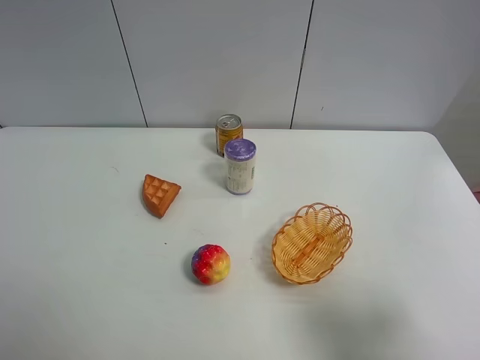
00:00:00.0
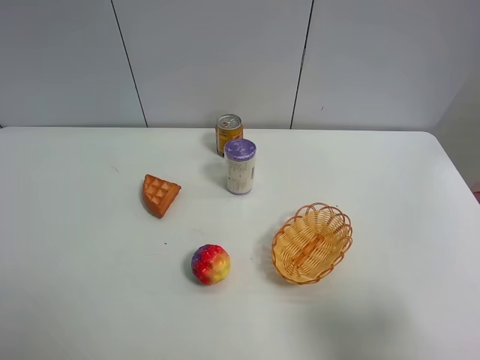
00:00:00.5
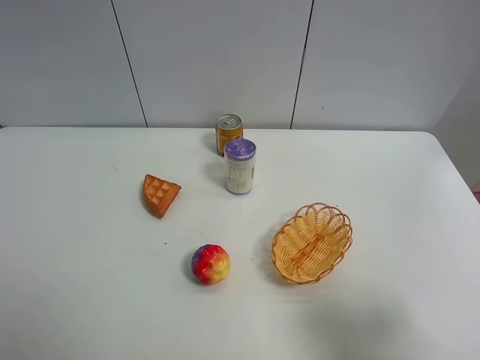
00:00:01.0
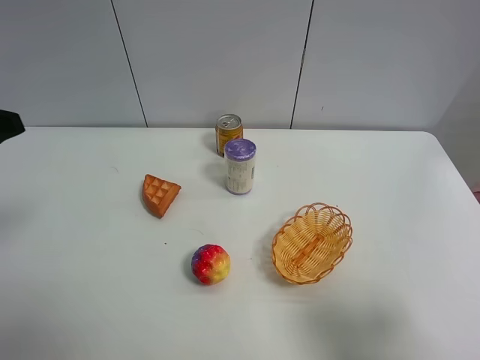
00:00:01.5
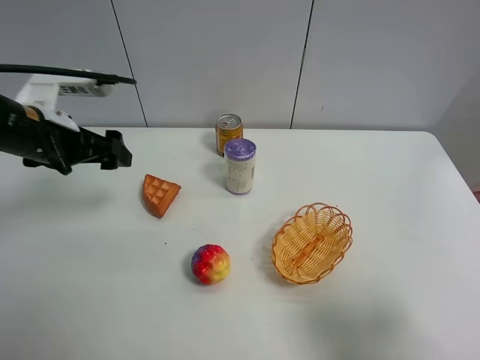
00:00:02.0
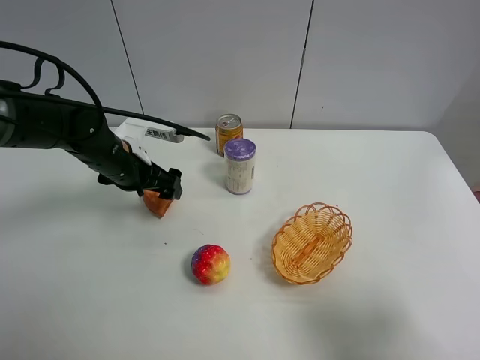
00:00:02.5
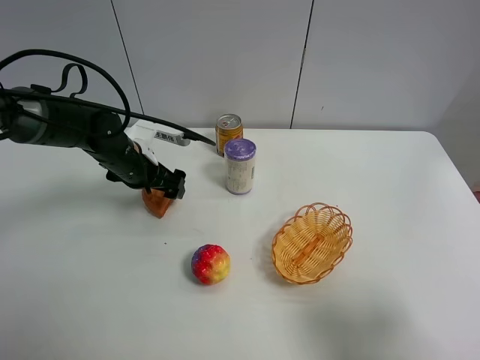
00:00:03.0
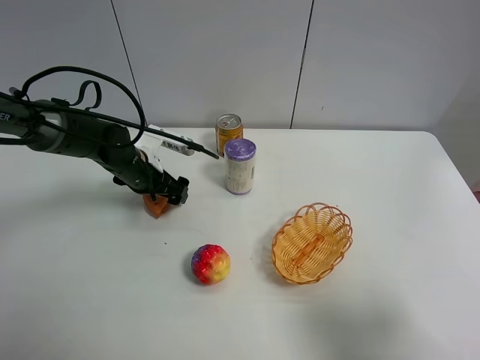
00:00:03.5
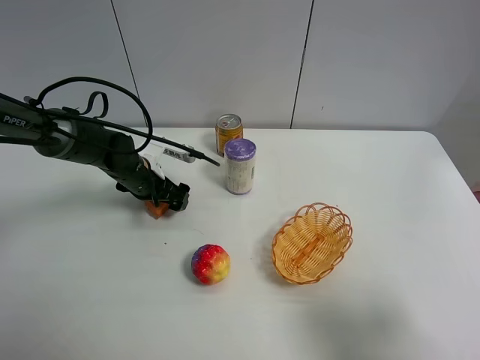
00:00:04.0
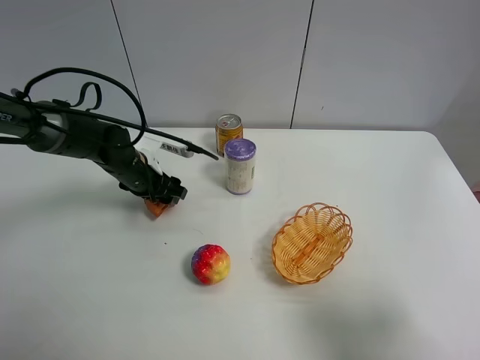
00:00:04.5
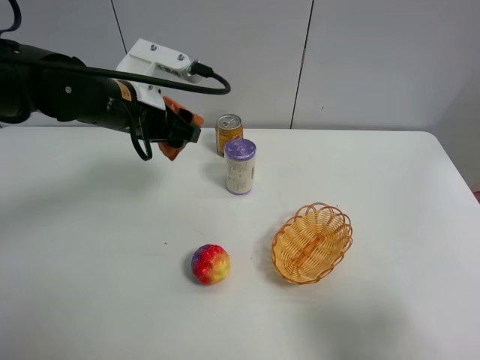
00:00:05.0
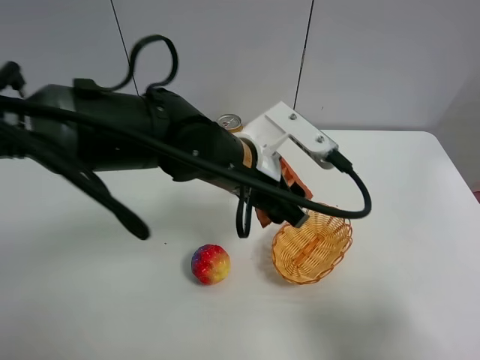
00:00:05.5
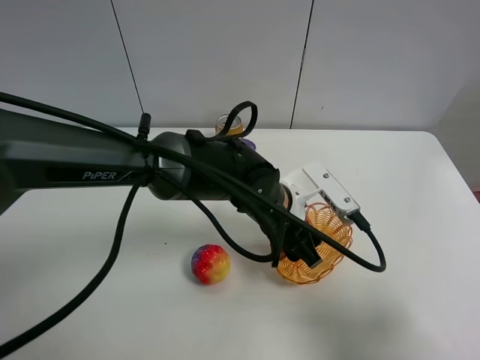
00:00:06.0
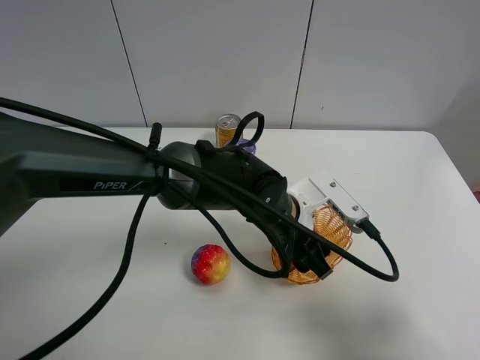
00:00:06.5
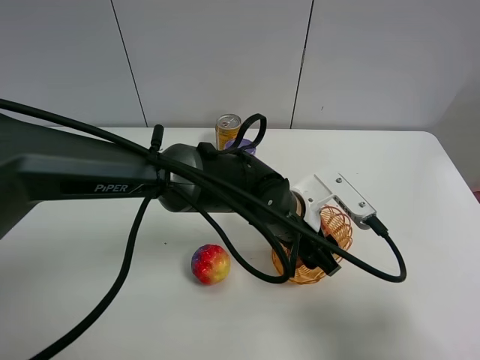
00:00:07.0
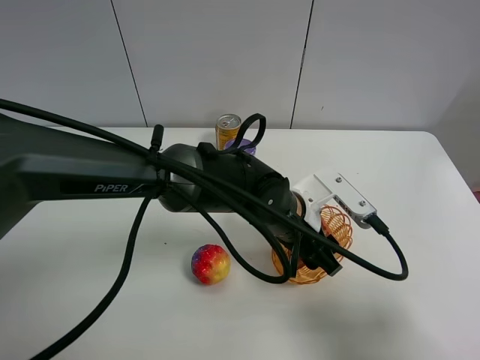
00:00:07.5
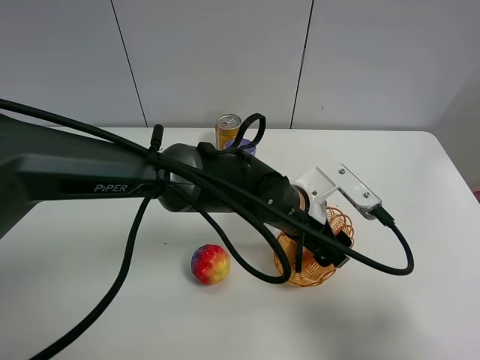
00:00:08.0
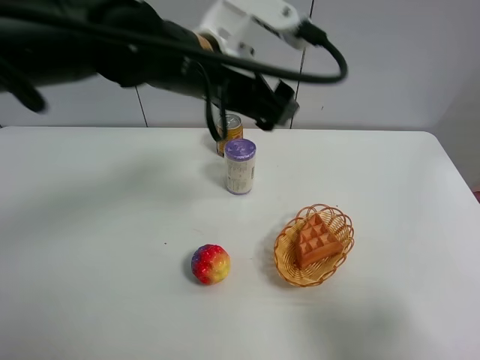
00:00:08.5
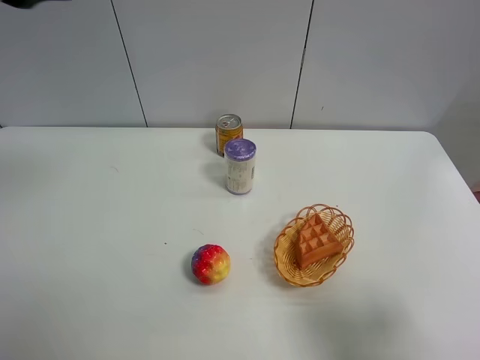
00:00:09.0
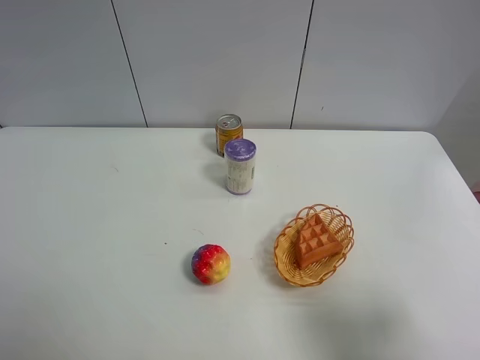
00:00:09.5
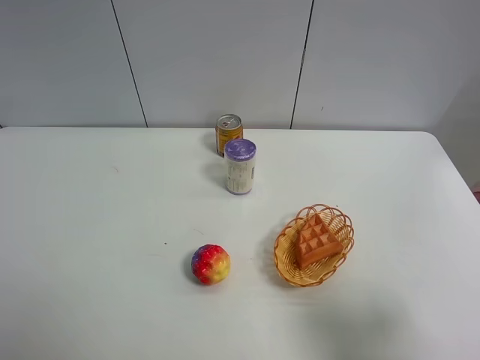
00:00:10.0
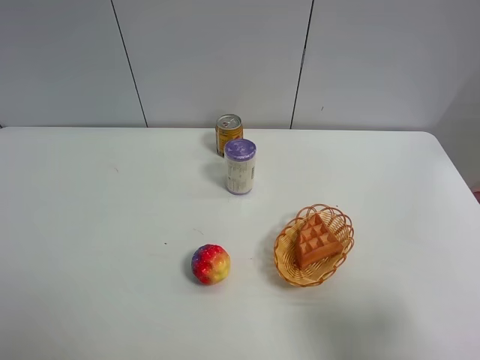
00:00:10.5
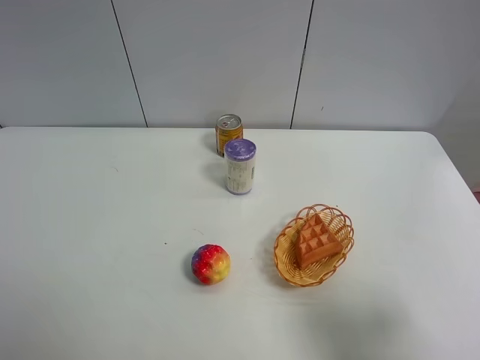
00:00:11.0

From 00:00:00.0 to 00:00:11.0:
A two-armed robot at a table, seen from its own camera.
Task of the whole recording: Put the bakery in the basket.
From 00:00:00.0 to 00:00:02.0: The left gripper travels forward by about 30 cm.
From 00:00:02.0 to 00:00:03.5: The left gripper goes some 15 cm downward, forward and to the right.
From 00:00:03.5 to 00:00:05.5: The left gripper is displaced to the right, backward and upward by approximately 25 cm, and closes.
From 00:00:05.5 to 00:00:07.5: The left gripper heads downward and to the right, covering roughly 10 cm.
From 00:00:07.5 to 00:00:09.0: The left gripper shifts roughly 50 cm upward and to the left, and opens its fingers.

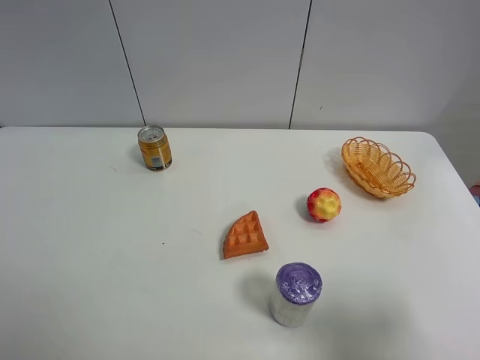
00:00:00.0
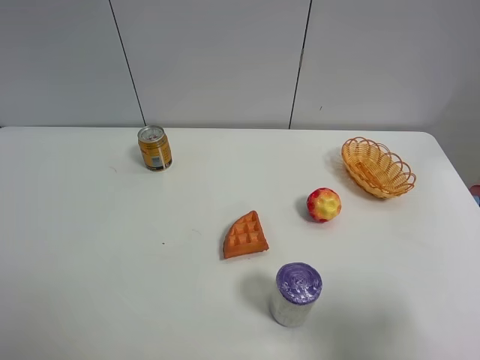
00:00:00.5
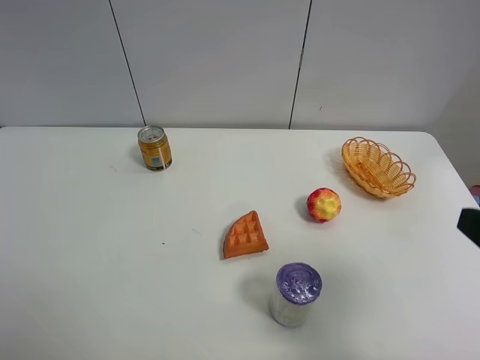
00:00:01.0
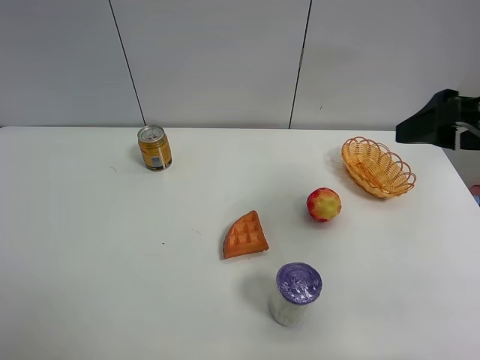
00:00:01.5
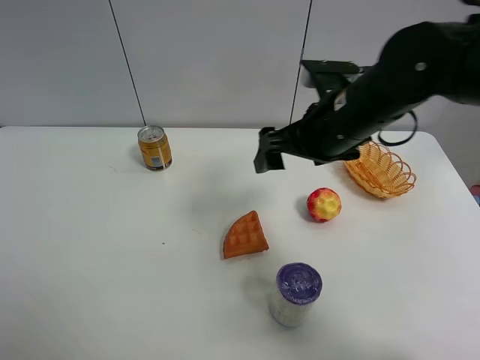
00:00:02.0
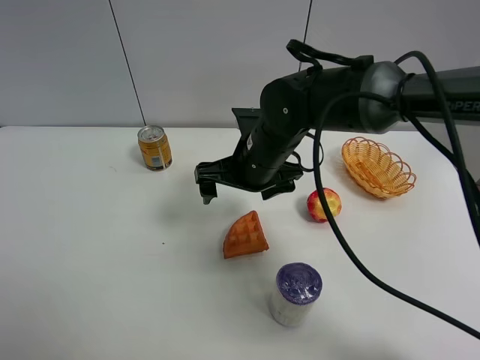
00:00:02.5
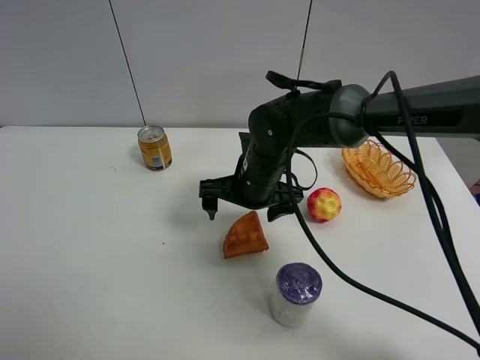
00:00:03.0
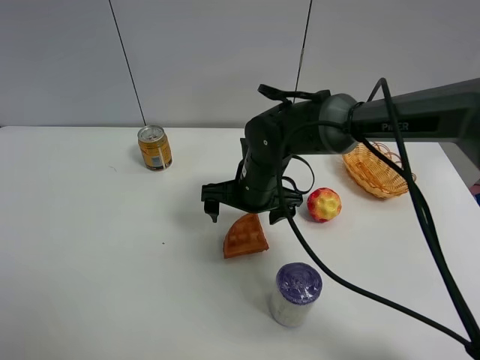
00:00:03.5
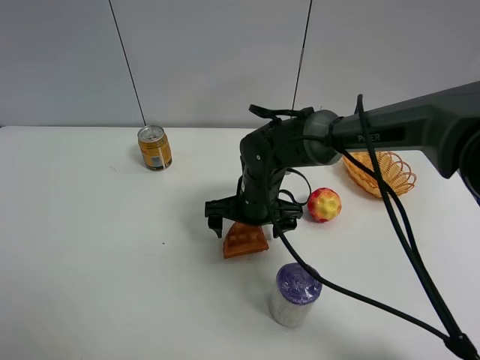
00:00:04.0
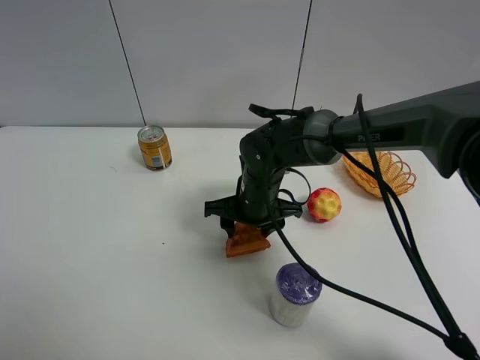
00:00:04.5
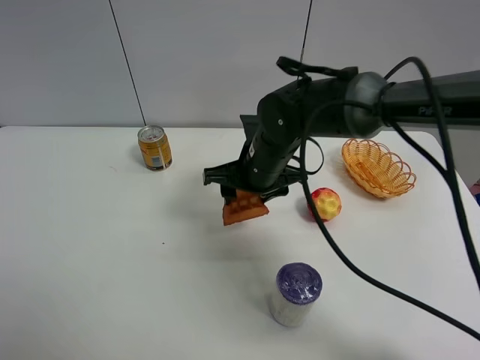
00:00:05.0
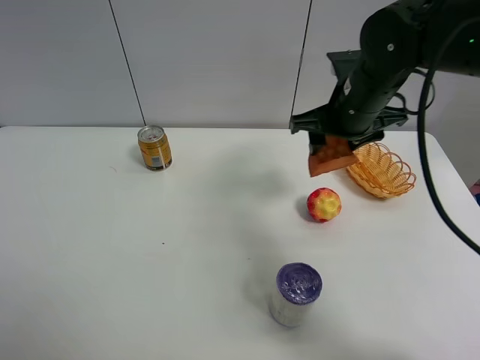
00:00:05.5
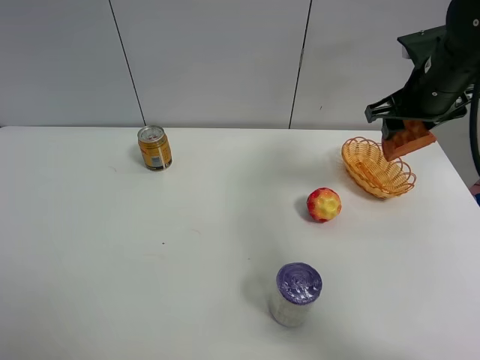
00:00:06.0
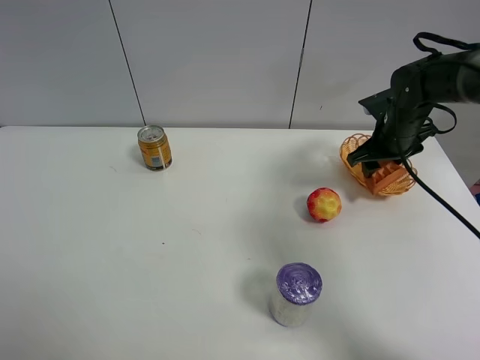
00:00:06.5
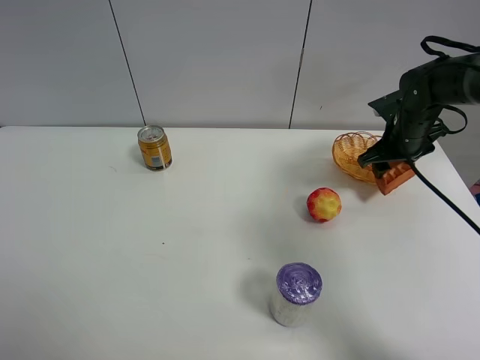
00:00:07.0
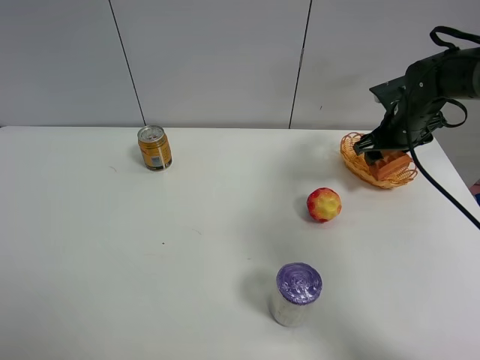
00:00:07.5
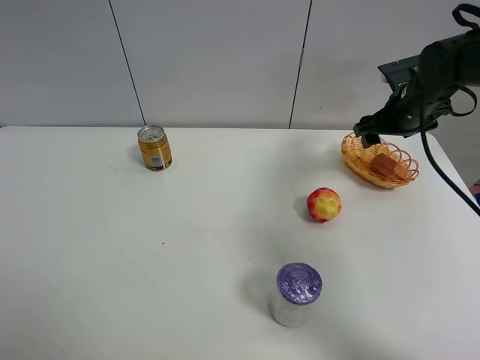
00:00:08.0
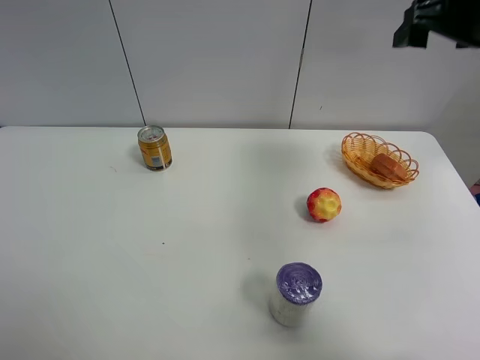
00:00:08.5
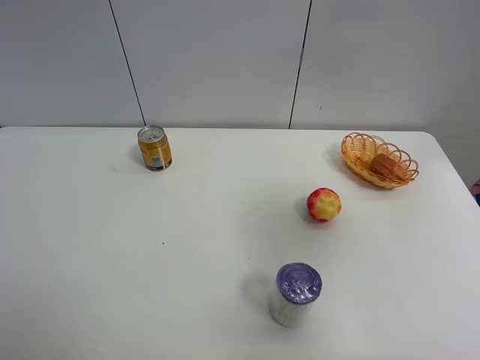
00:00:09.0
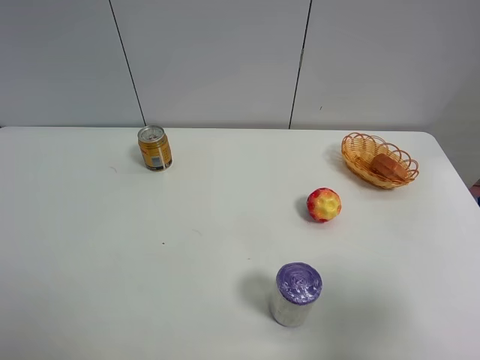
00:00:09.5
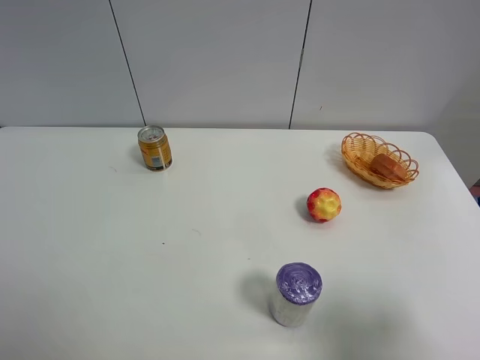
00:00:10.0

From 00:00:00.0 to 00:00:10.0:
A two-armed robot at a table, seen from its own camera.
Task of the whole recording: Put the bakery in the basket.
Step, from 00:00:00.0 to 00:00:04.0: Grasp the bread with right gripper.
Step, from 00:00:04.5 to 00:00:08.0: Place the bread in the basket with right gripper.
From 00:00:00.0 to 00:00:02.0: The right gripper moves forward and to the left, about 35 cm.
From 00:00:02.0 to 00:00:04.0: The right gripper moves downward and to the left, some 15 cm.
From 00:00:04.0 to 00:00:06.0: The right gripper is displaced to the right and upward by some 30 cm, and closes up.
From 00:00:06.0 to 00:00:08.0: The right gripper moves downward and forward, some 10 cm, and opens up.
From 00:00:08.0 to 00:00:10.0: The right gripper moves backward, roughly 40 cm.
